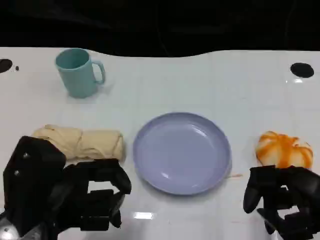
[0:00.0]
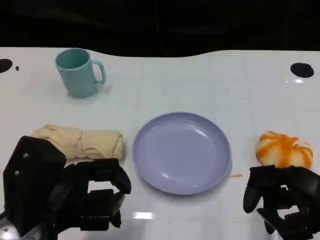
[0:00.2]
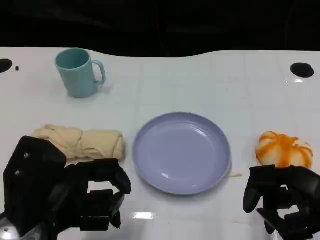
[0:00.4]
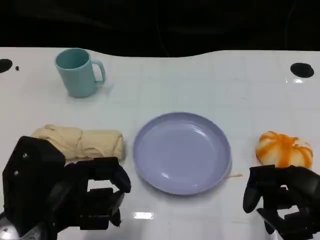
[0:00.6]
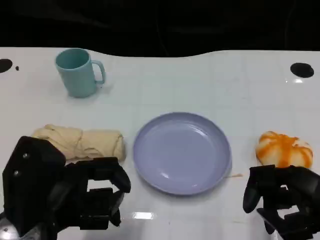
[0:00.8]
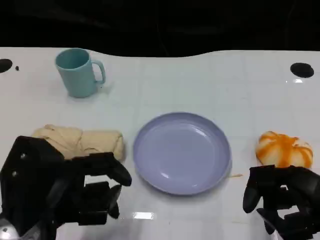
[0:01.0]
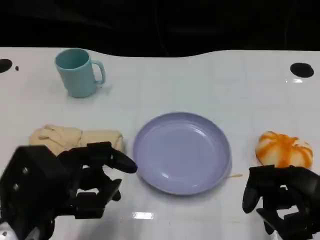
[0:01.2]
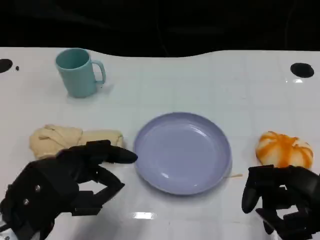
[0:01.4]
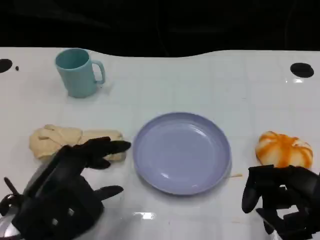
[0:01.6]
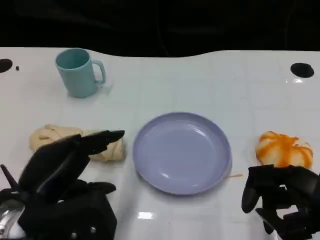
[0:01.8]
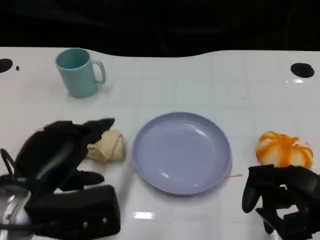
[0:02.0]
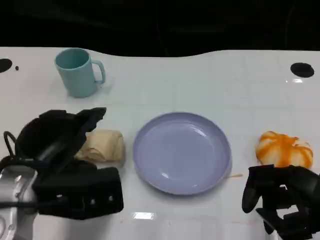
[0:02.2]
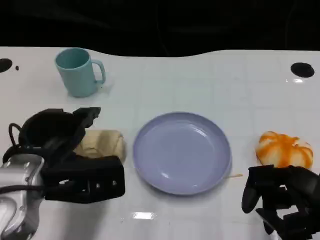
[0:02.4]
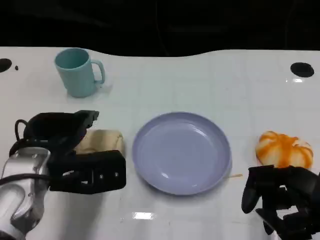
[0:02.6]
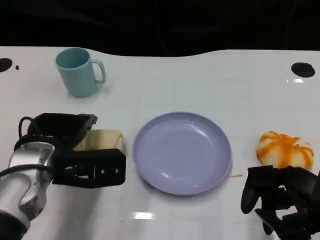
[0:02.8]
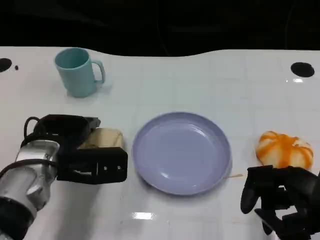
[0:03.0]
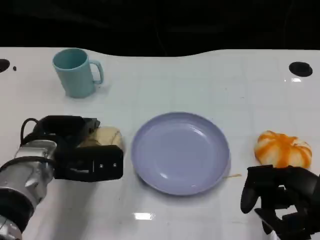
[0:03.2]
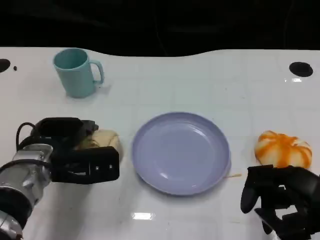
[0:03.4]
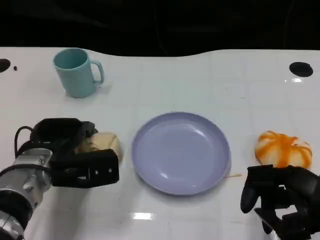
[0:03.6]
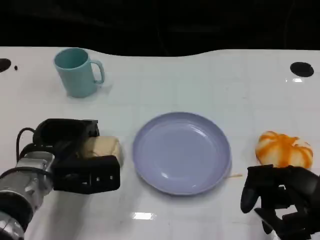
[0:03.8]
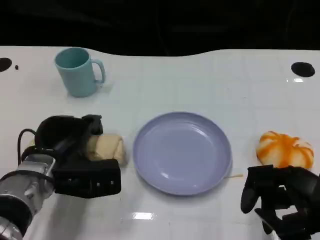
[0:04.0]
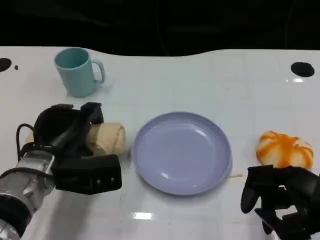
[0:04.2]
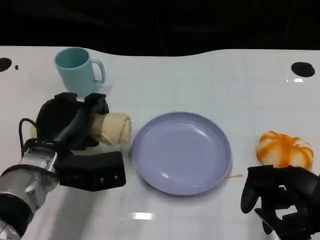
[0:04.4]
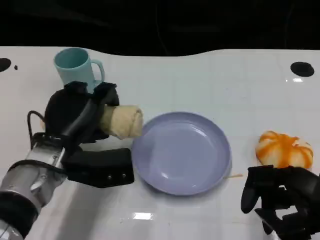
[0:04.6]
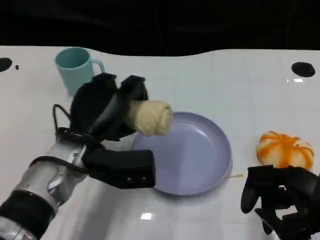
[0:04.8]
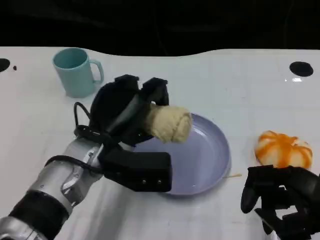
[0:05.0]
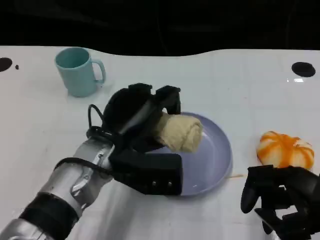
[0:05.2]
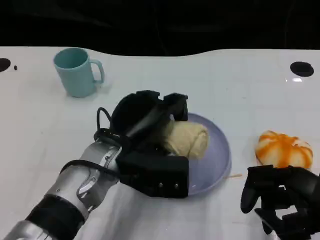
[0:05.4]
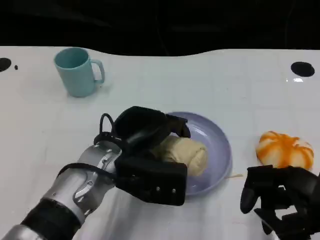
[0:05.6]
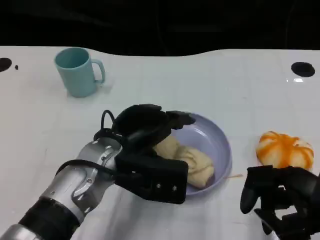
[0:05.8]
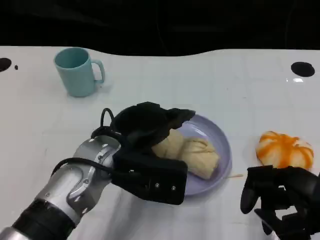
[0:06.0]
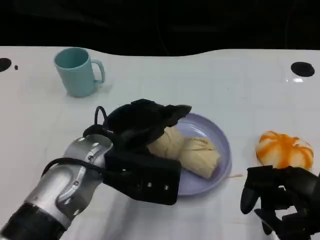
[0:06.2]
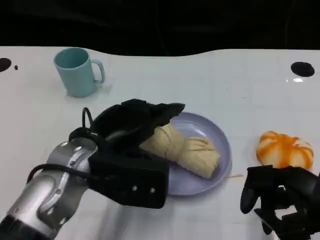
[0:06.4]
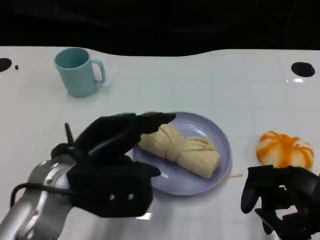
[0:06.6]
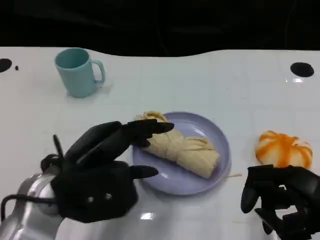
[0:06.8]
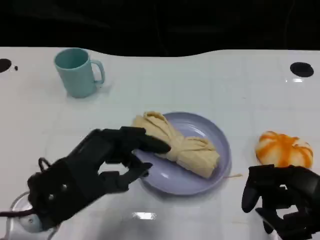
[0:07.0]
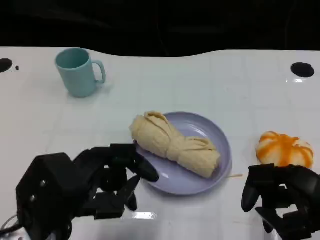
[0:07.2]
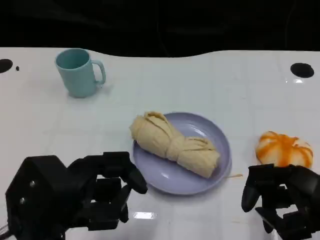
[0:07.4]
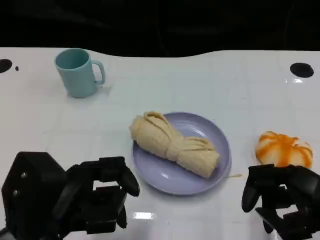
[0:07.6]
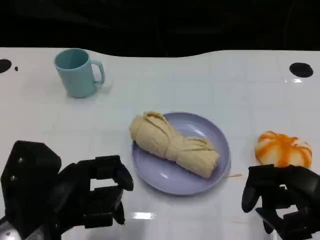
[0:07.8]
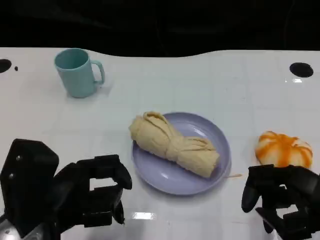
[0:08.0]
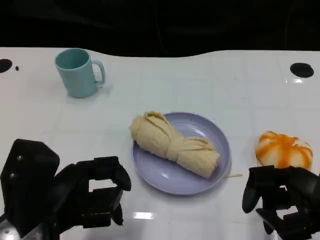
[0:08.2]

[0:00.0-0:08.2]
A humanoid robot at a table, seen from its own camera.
Task of the whole recording: Grasp the towel on the left side of the plate with the left hand and place it into the plate.
0:01.6 to 0:03.2: The left hand is displaced forward by approximately 10 cm.
0:03.2 to 0:05.0: The left hand moves to the right, approximately 10 cm.
0:05.0 to 0:06.6: The left hand heads backward, covering some 5 cm.
0:06.6 to 0:08.2: The left hand ends up about 5 cm from where it was.

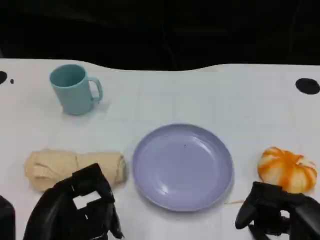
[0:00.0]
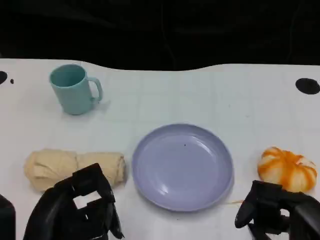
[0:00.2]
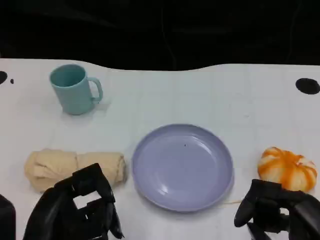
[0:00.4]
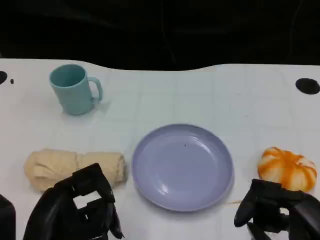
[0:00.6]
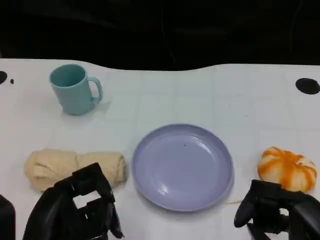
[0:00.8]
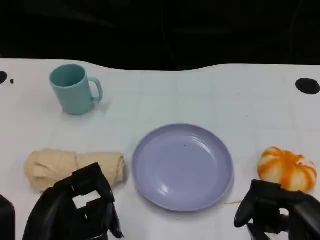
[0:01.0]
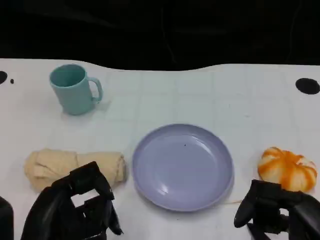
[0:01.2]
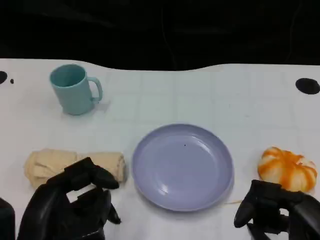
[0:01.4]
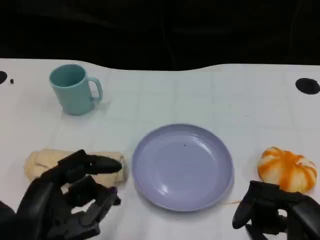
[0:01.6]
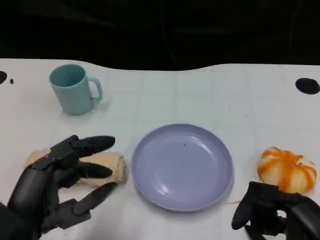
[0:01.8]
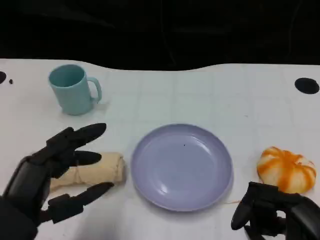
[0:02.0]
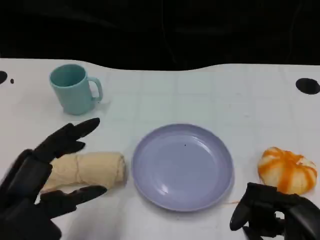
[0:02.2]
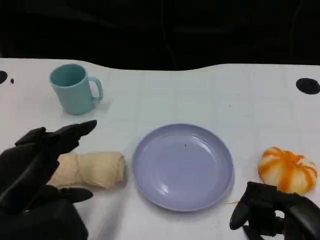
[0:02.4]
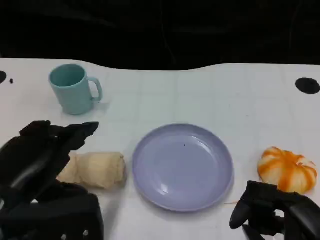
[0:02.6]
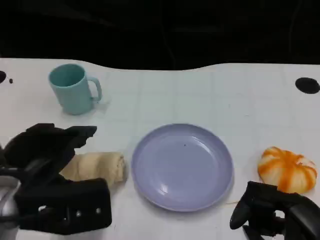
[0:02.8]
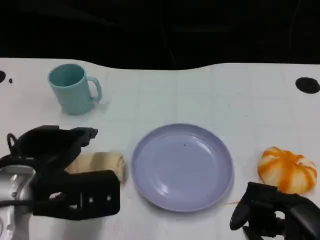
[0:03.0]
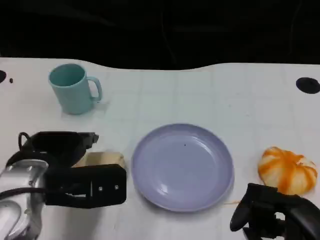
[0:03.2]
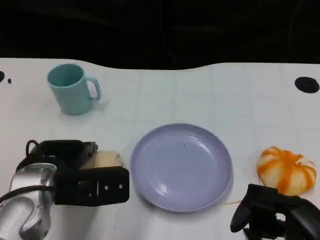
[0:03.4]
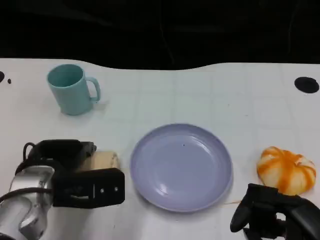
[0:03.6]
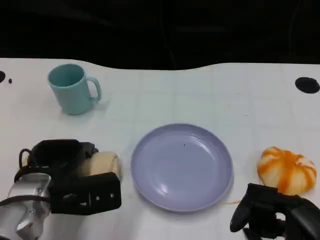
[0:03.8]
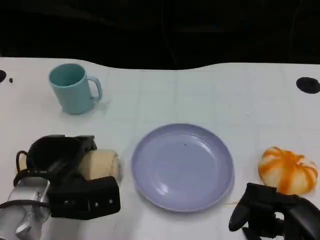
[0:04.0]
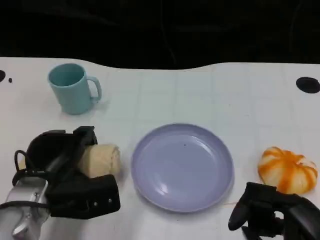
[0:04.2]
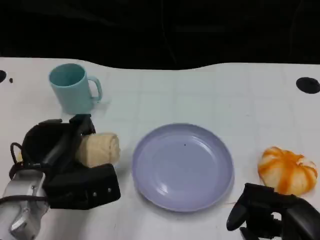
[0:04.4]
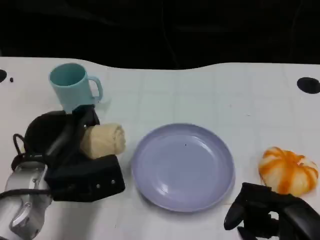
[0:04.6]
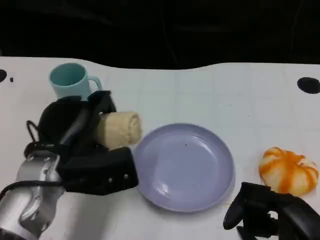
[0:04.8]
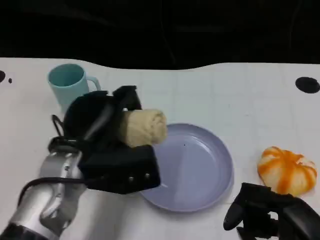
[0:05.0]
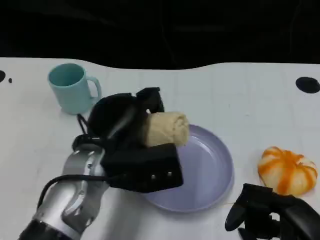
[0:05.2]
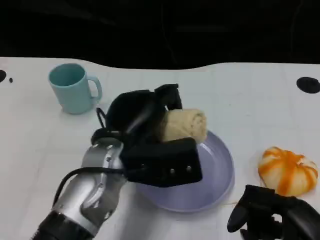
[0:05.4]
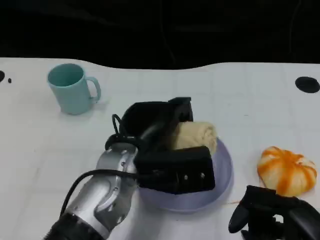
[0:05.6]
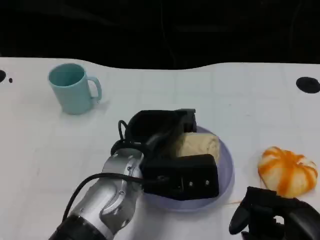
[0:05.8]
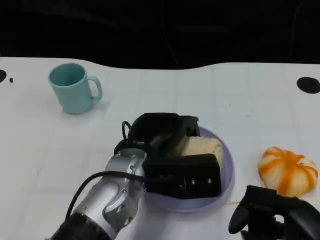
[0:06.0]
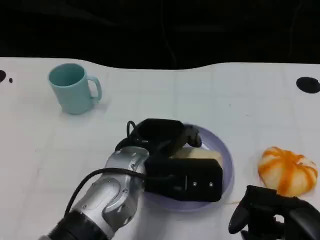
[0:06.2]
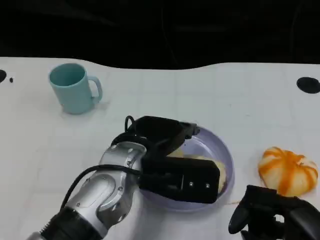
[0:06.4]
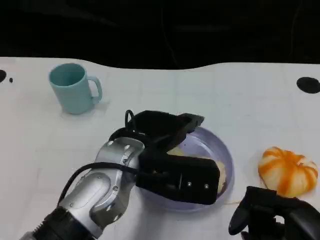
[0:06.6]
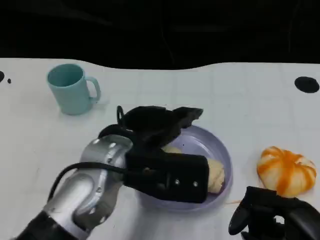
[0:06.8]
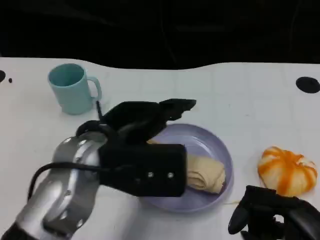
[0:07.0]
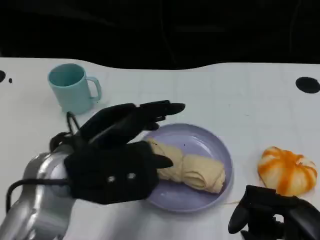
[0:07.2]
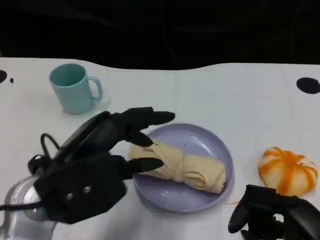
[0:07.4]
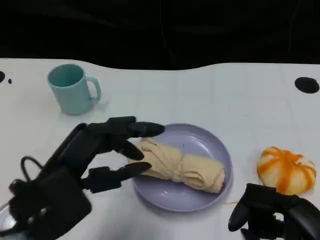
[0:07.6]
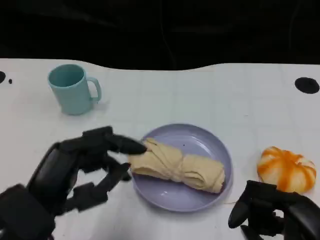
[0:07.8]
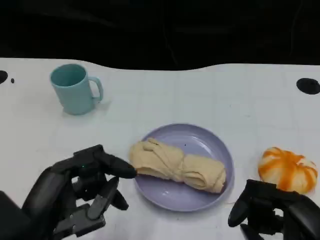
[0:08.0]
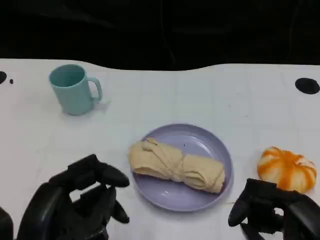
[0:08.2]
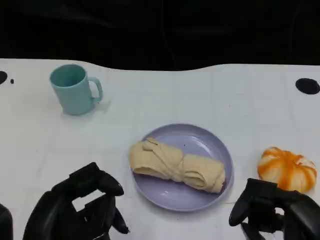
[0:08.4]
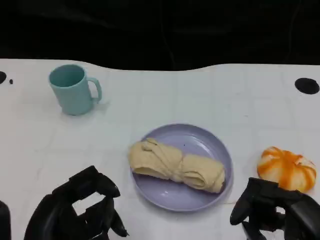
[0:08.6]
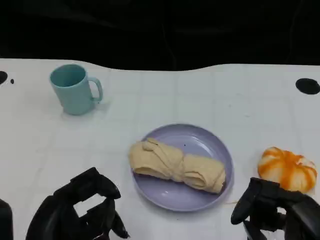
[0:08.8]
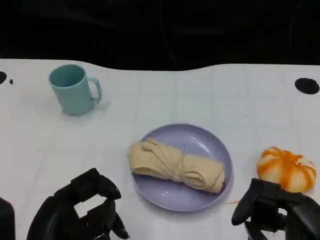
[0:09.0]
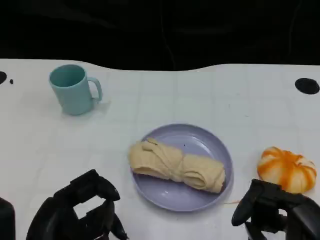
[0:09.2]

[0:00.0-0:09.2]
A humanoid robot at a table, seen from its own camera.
Task of the whole recording: Grasp the towel on the left side of the plate with the left hand and place it into the plate.
0:00.0 to 0:01.6: The hands move only a little.
0:01.6 to 0:03.0: The left hand shifts roughly 10 cm forward.
0:04.6 to 0:06.2: The left hand moves to the right, roughly 15 cm.
0:06.2 to 0:07.6: The left hand moves to the left and backward, roughly 15 cm.
0:07.6 to 0:09.2: The left hand travels backward by about 5 cm.

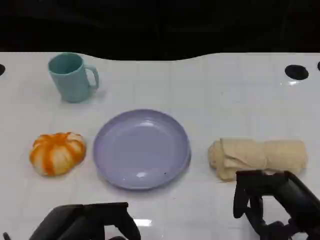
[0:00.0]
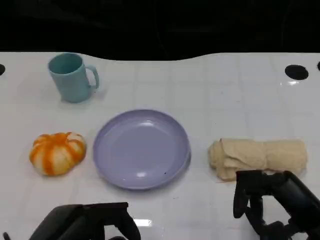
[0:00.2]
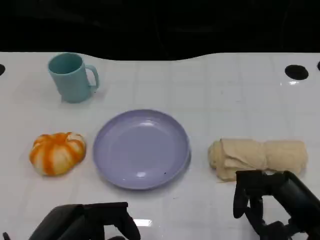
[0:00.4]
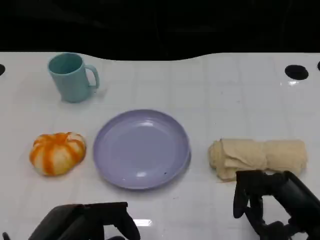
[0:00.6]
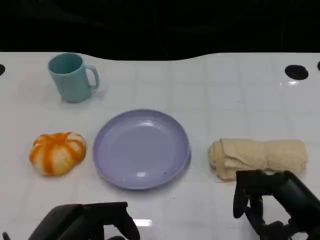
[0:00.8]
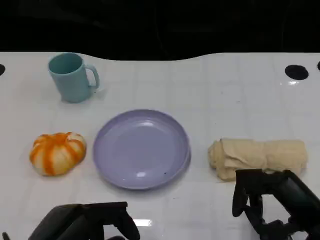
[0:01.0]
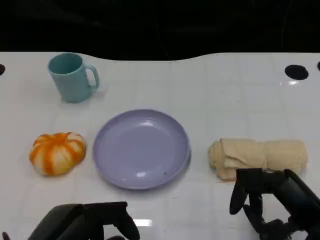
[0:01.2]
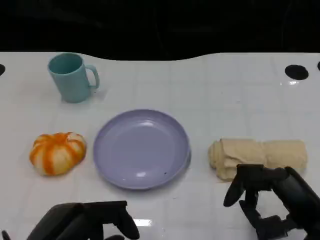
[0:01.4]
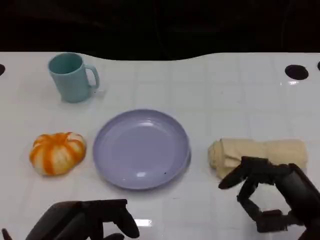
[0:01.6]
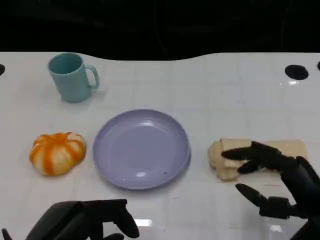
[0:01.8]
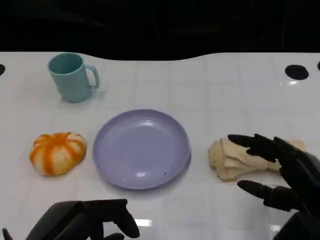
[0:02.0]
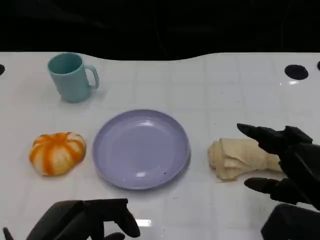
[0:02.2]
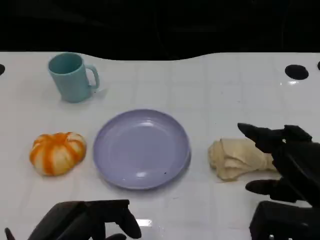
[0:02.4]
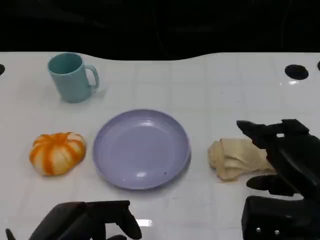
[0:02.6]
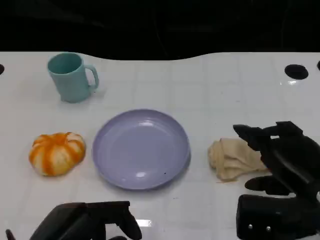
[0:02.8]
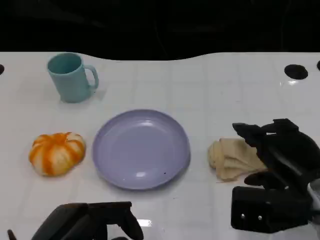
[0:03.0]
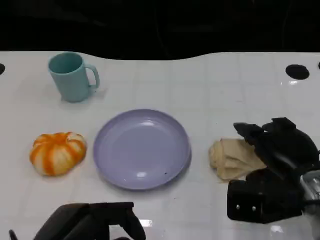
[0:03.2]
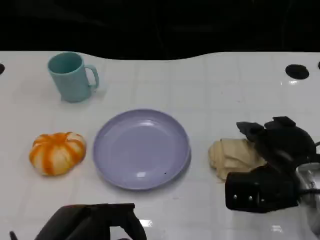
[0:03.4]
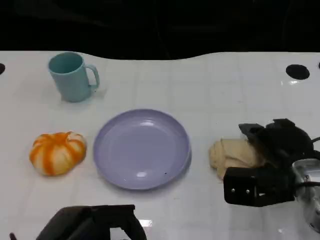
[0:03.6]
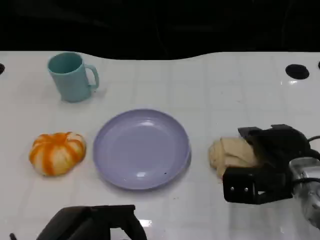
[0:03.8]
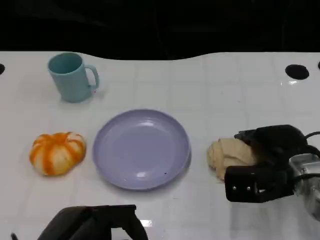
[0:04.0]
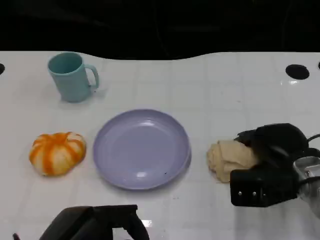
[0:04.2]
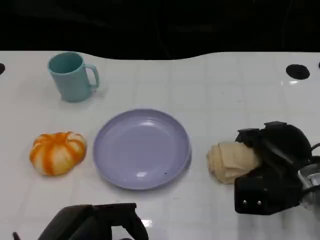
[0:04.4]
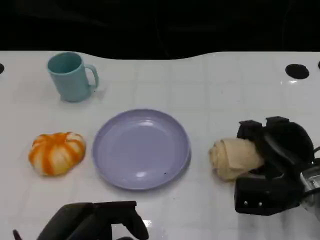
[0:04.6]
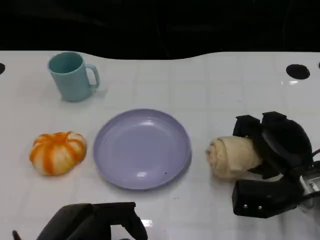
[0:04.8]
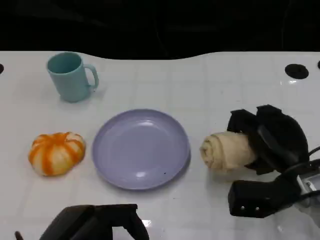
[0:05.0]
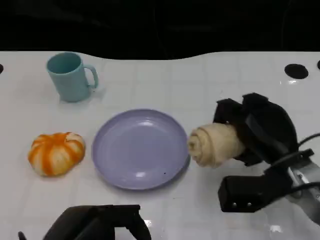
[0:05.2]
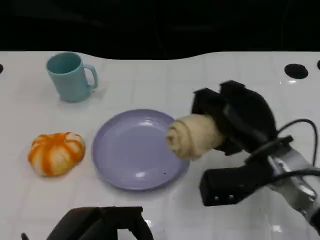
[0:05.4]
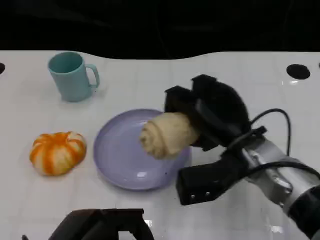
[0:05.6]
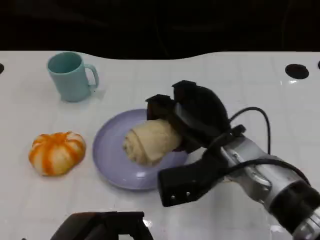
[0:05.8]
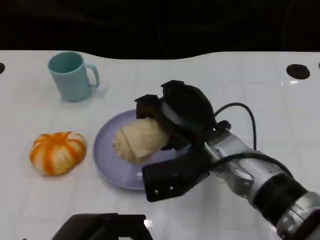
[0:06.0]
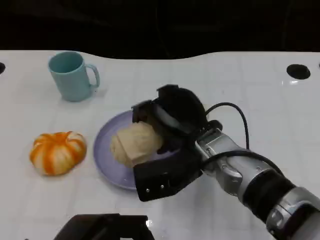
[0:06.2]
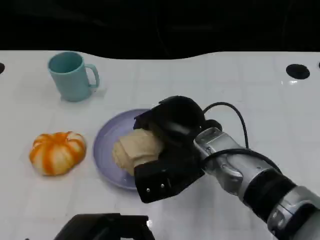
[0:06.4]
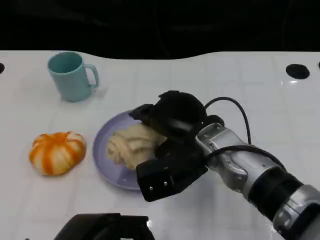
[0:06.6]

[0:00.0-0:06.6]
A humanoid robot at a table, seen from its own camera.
Task of the whole recording: Grasp the towel on the left side of the plate with the left hand and place it into the plate.
0:00.0 to 0:01.6: The hands move only a little.
0:01.6 to 0:03.2: The right hand goes roughly 10 cm forward.
0:05.0 to 0:06.6: The right hand is displaced to the left and upward by about 15 cm.
